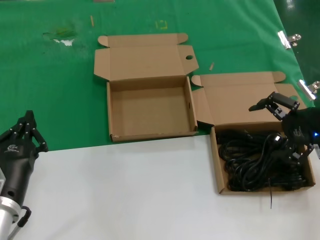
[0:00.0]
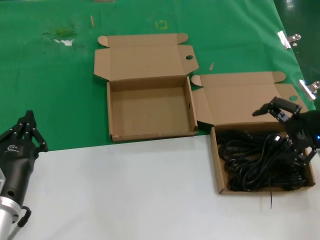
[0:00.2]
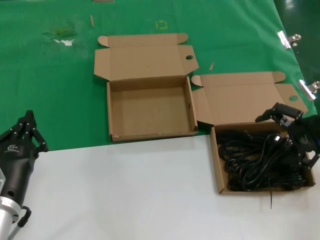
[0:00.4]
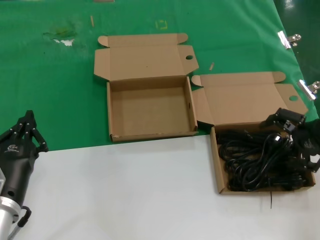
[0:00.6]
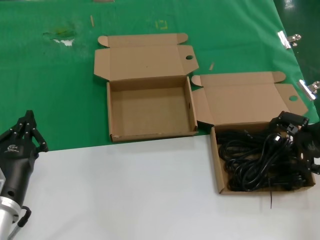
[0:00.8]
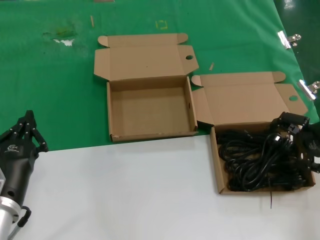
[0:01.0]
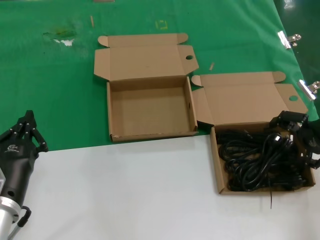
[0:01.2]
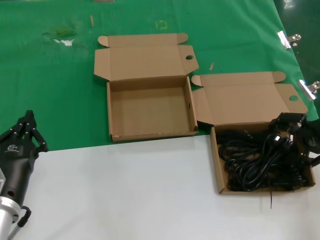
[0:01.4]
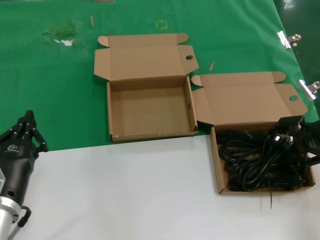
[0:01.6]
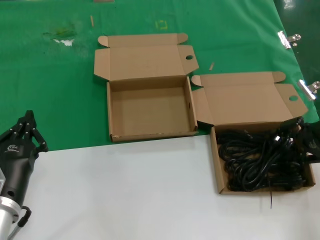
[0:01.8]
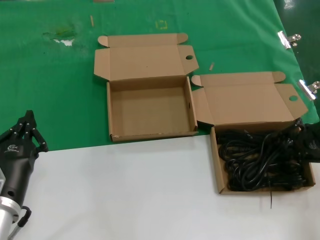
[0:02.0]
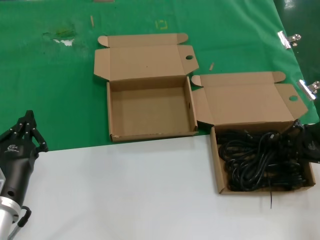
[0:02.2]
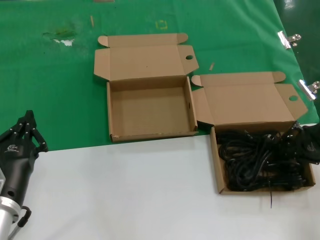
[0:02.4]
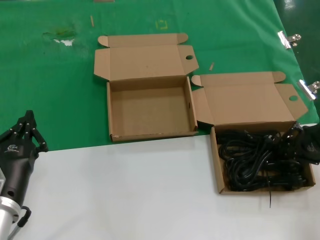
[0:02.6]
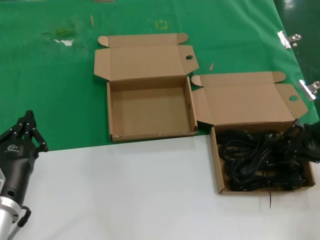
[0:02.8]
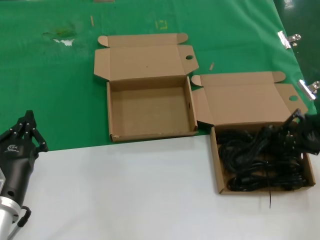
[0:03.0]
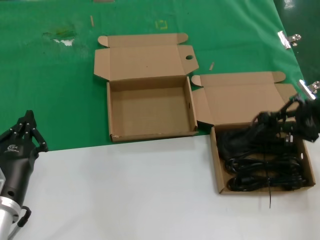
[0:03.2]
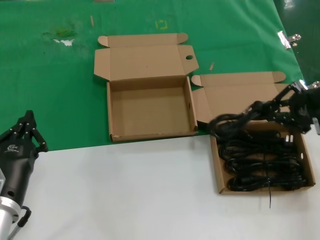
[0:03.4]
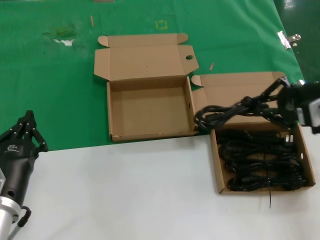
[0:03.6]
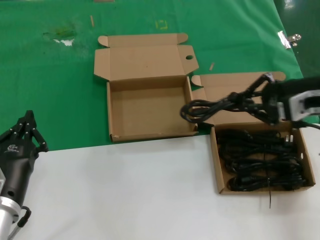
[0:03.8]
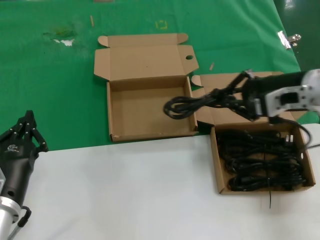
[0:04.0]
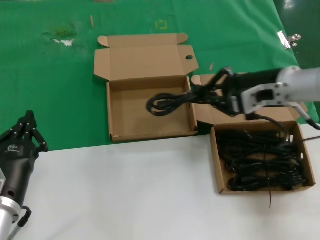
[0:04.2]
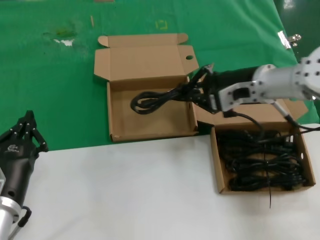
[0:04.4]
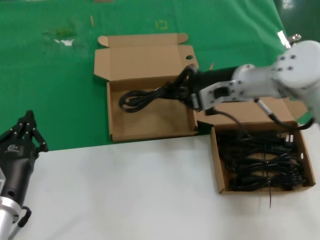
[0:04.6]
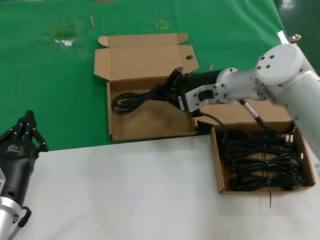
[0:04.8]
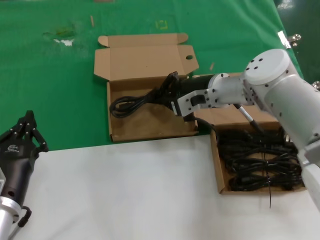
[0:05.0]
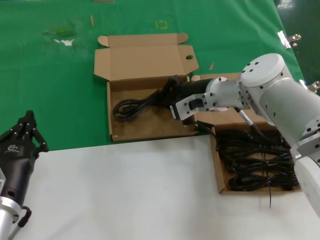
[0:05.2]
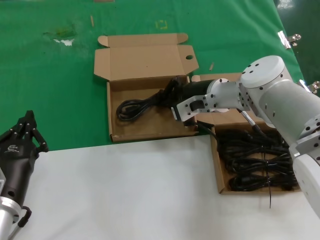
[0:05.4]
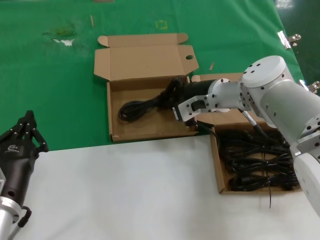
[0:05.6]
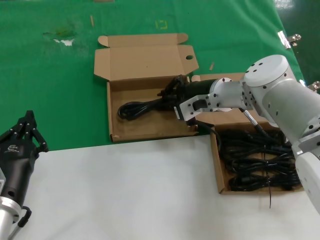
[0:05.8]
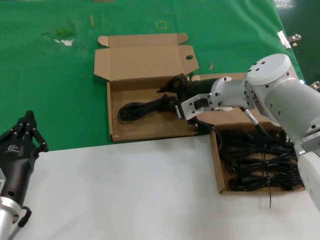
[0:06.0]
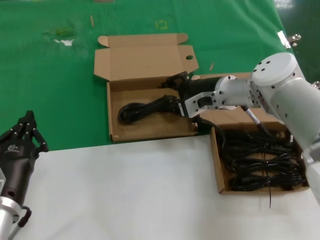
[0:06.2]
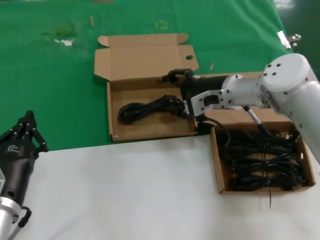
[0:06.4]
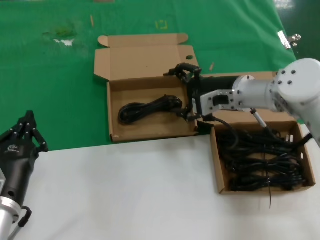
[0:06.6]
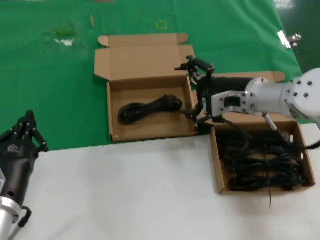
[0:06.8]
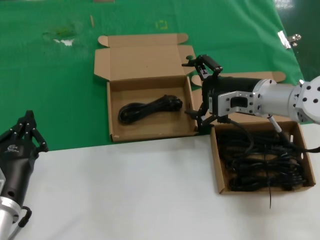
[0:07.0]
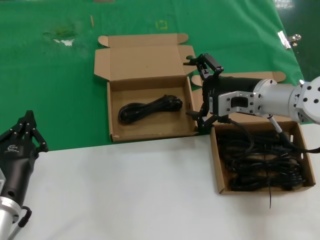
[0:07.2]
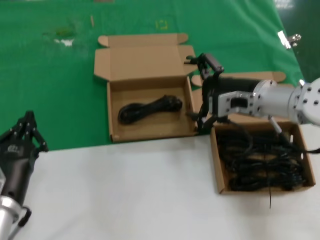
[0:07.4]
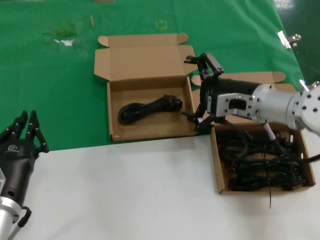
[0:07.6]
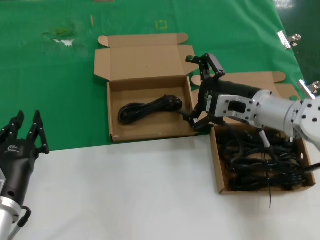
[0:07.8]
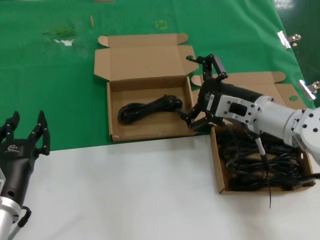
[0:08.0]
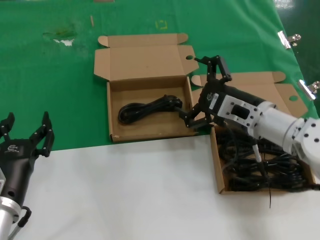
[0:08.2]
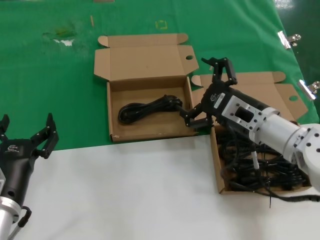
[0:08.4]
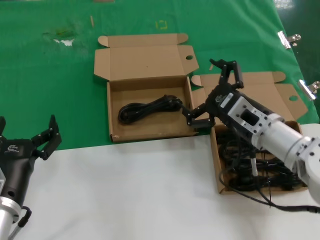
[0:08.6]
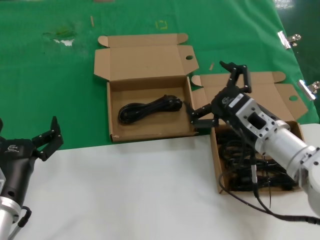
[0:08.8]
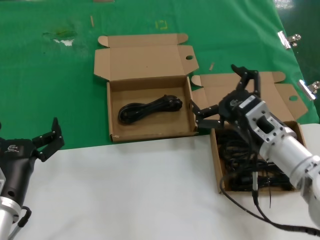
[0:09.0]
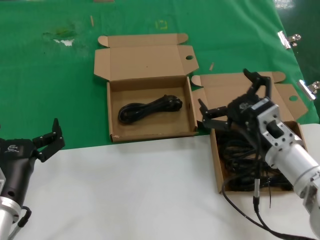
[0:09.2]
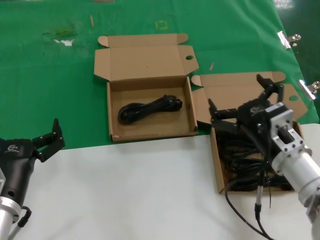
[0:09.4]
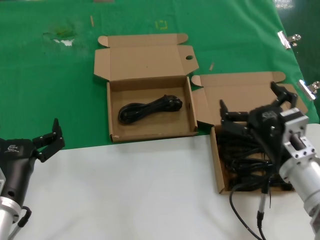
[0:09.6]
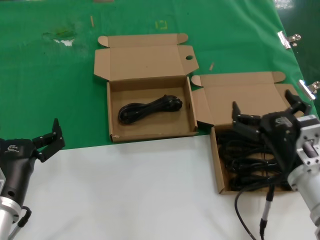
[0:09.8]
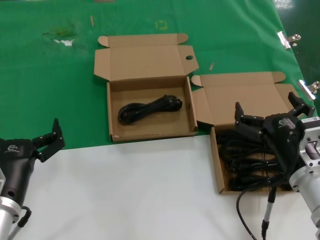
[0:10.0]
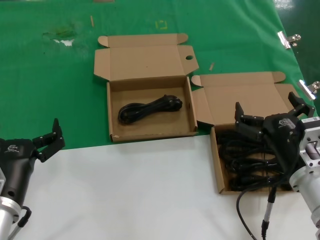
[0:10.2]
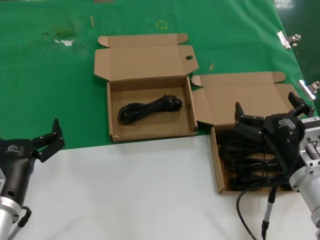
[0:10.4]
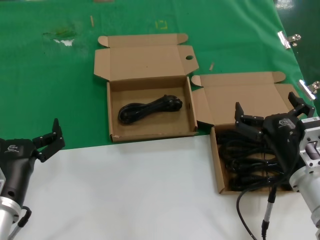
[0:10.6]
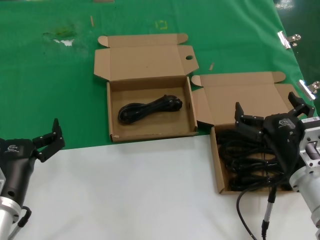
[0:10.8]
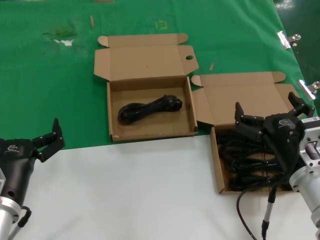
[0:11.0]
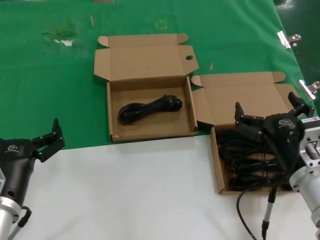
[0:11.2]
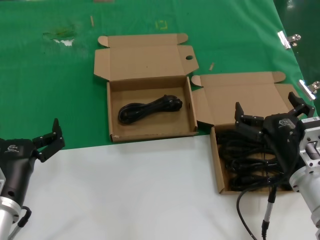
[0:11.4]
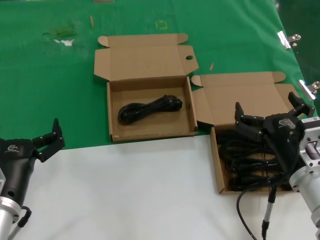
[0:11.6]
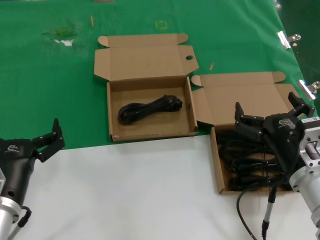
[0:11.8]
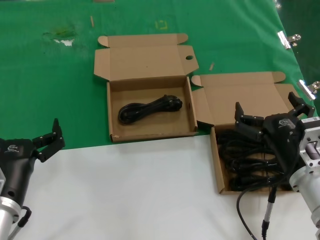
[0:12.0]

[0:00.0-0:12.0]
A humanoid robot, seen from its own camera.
Task of the whole recording: take the parts from the box containing them and put them into an empty box.
Step, 0:00.0 to 0:02.6: Grasp the data cable.
Step, 0:02.8 to 0:05.8: Place the data cable in the another box.
0:00.0 to 0:03.0: The hands stay close to where they were, moving slightly.
0:03.0 to 0:04.4: The right hand goes about 20 cm to the left and forward.
0:04.4 to 0:06.0: The right hand shifts about 10 cm downward, to the left and forward.
0:06.0 to 0:07.6: The right hand moves backward and to the right, about 10 cm.
0:07.6 to 0:09.0: The right hand moves backward and downward, roughly 10 cm.
0:09.0 to 0:10.4: The right hand travels backward by approximately 5 cm.
0:10.4 to 0:12.0: Both hands stay put.

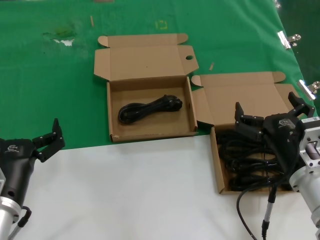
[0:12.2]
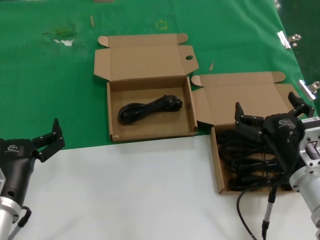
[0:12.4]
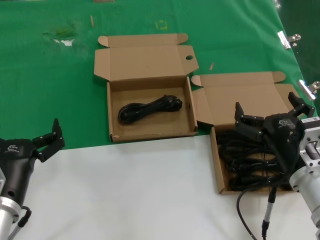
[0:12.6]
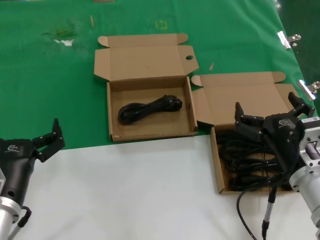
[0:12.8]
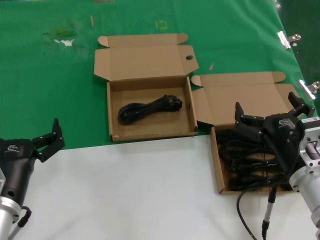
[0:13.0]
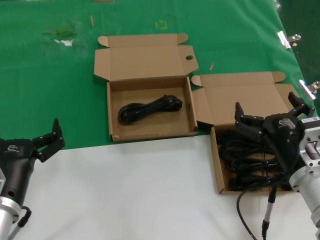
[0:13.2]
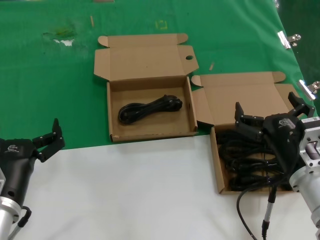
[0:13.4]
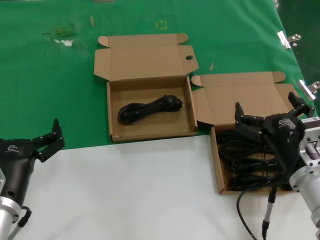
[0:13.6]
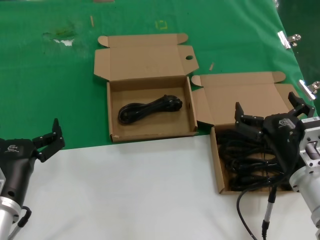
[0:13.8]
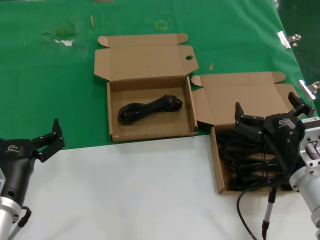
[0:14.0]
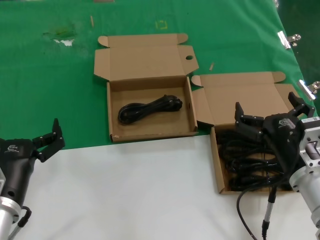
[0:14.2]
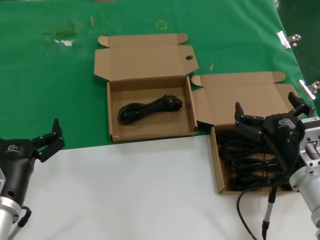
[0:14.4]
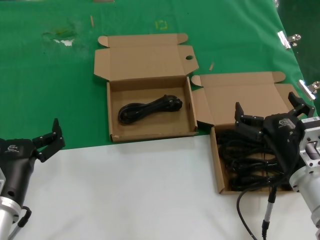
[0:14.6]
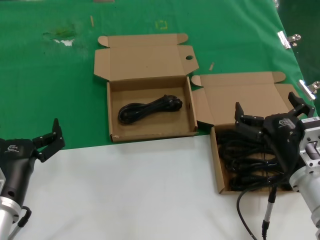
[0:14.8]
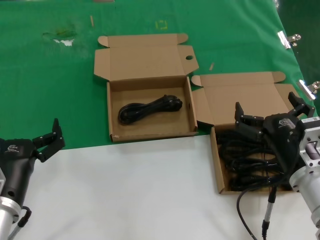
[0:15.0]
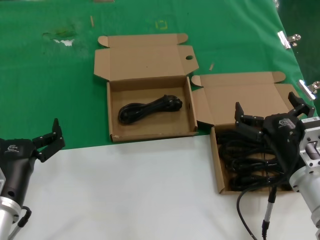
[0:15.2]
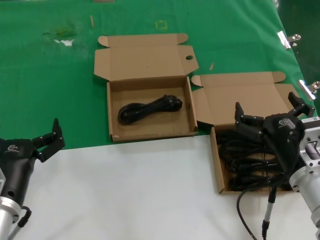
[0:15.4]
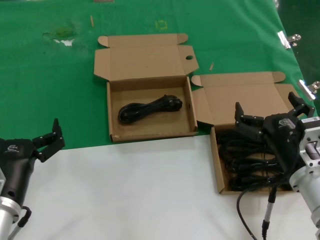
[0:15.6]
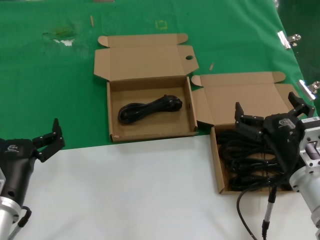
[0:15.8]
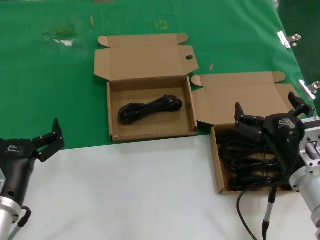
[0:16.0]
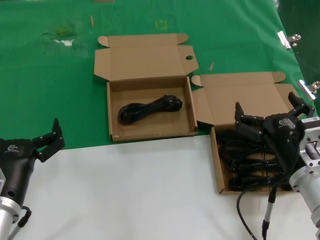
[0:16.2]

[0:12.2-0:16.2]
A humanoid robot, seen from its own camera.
Task of the whole recording: take the parts from the box containing them and put them into an empty box.
0:12.2 to 0:16.2: Both hands stay put.
